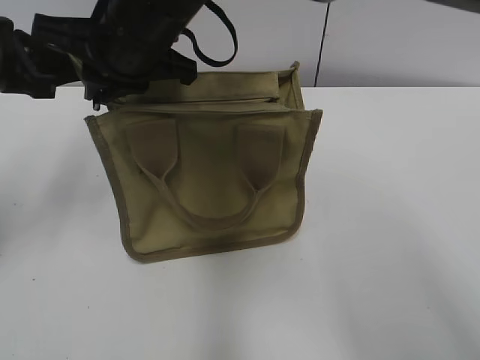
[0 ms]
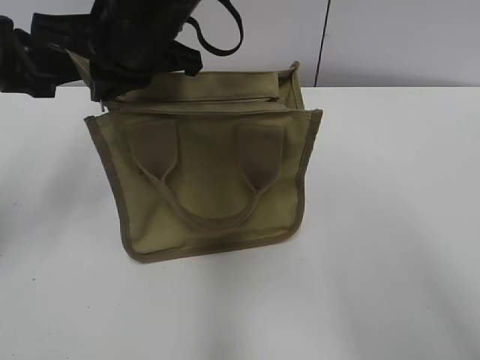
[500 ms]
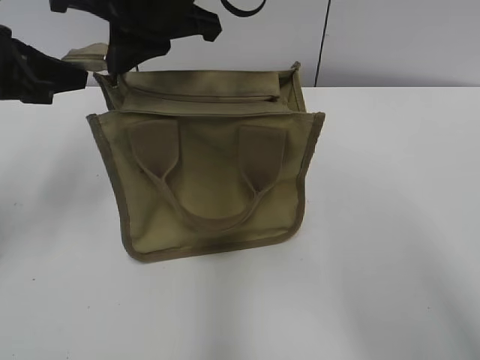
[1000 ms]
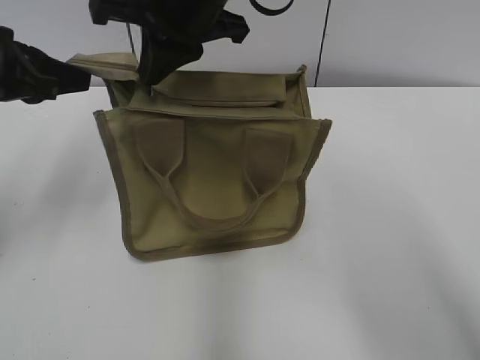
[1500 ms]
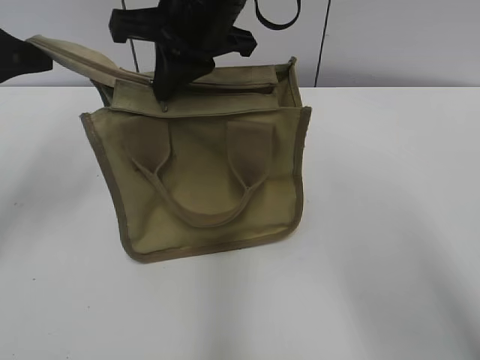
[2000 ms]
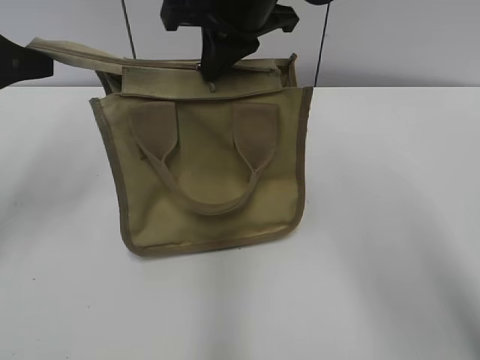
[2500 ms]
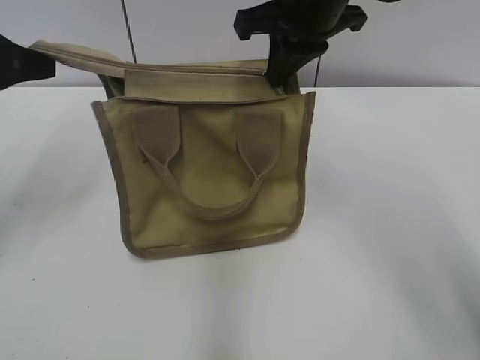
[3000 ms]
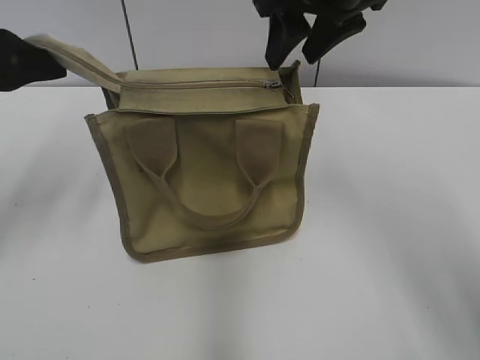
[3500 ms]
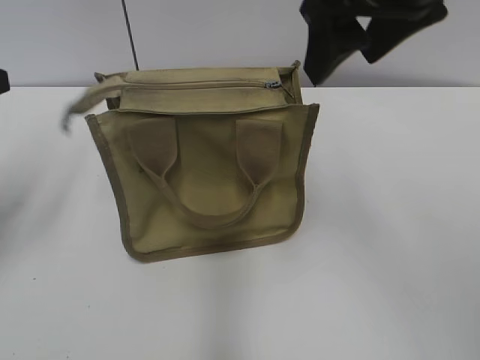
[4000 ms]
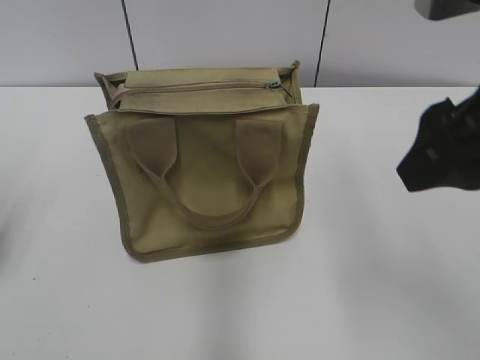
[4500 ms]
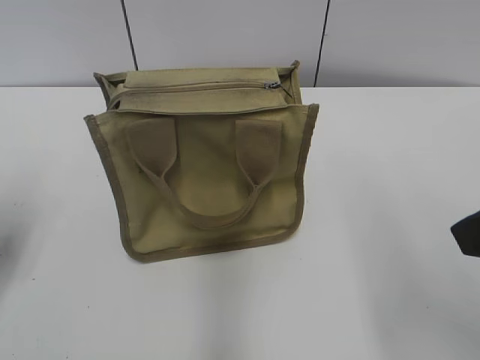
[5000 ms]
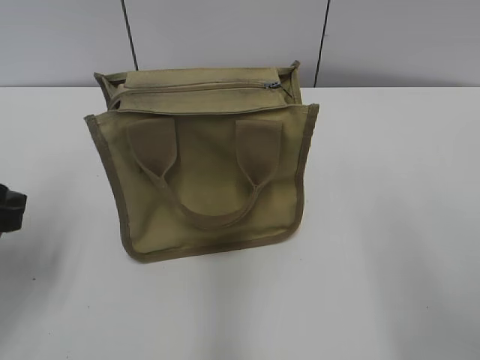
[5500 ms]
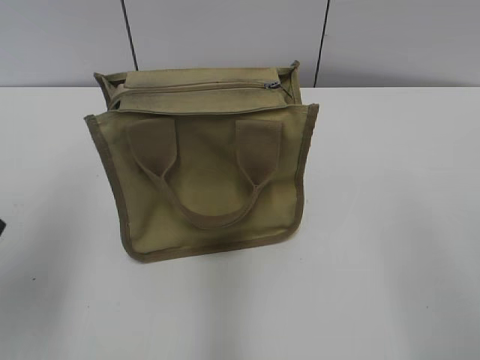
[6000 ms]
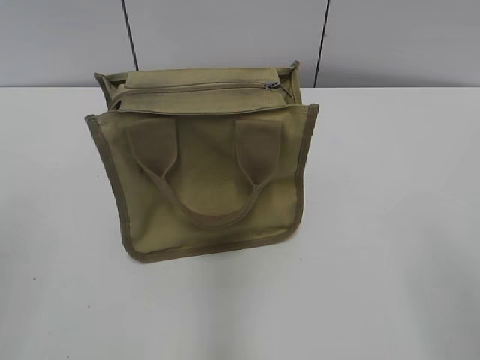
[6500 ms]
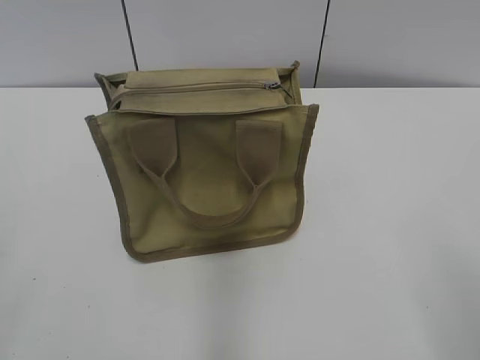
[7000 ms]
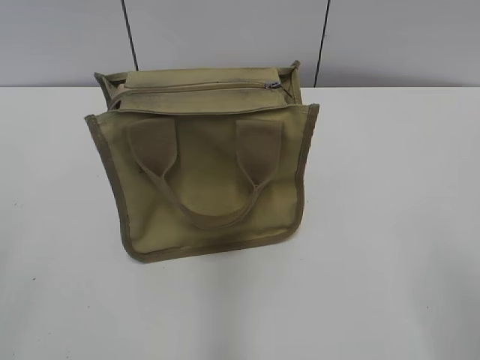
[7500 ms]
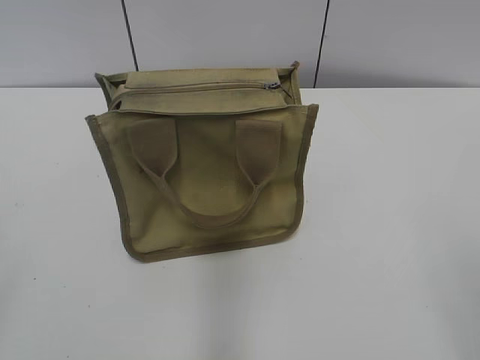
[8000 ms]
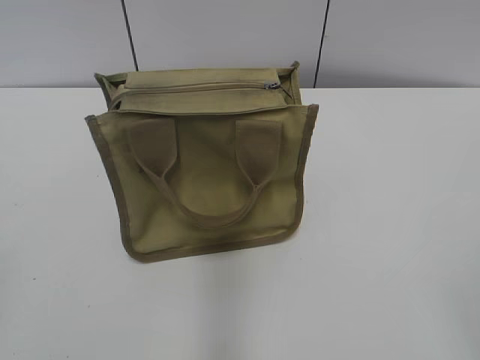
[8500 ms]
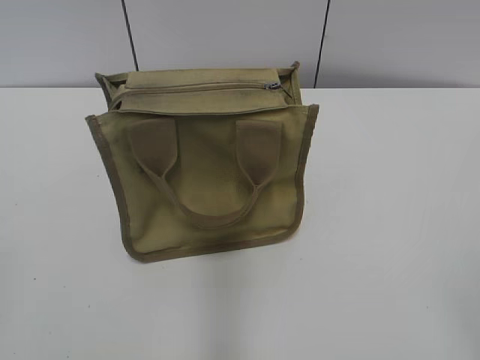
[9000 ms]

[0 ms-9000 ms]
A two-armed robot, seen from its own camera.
Step, 0 ms to 3000 ms: Zip up the bag with your right hand.
0 ms to 2000 ms: The right gripper moves to the right, roughly 5 cm.
2000 ms to 4500 ms: The left gripper is displaced backward and downward by roughly 10 cm, and opens its fingers; the right gripper goes about 25 cm to the right and backward, and opens up.
4500 ms to 7000 ms: The right gripper shifts roughly 20 cm backward and to the right.
